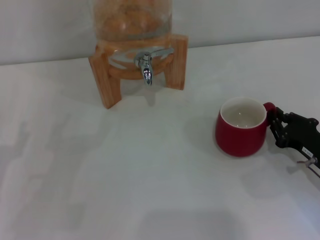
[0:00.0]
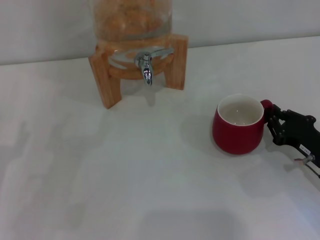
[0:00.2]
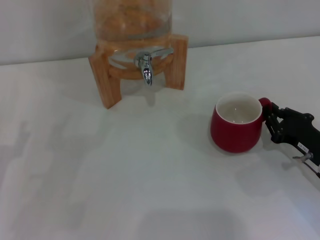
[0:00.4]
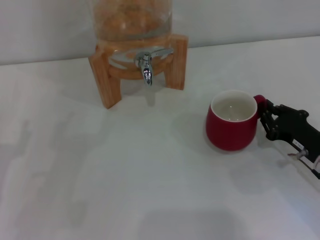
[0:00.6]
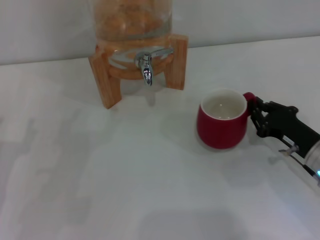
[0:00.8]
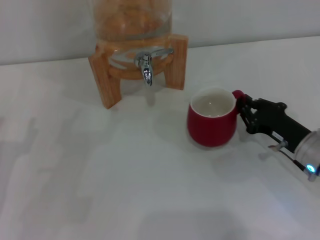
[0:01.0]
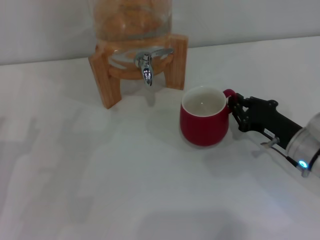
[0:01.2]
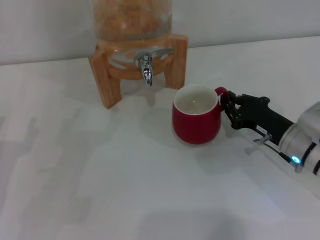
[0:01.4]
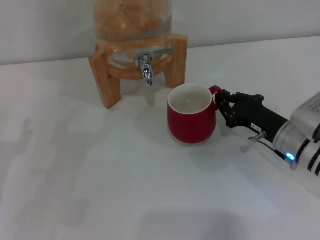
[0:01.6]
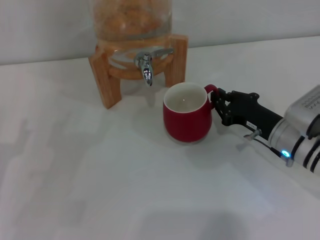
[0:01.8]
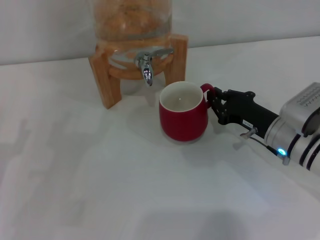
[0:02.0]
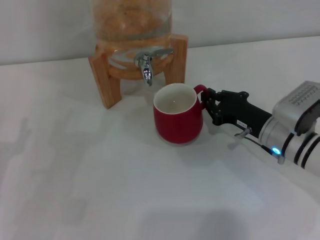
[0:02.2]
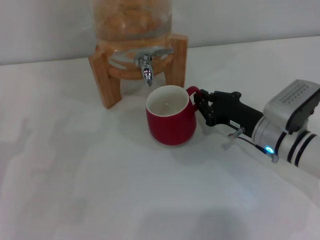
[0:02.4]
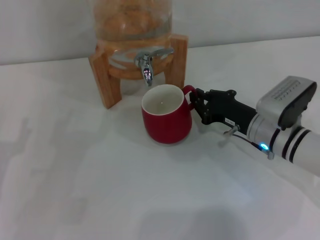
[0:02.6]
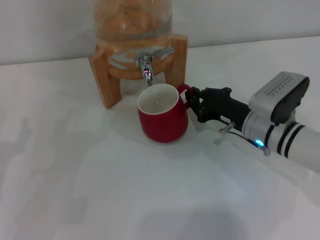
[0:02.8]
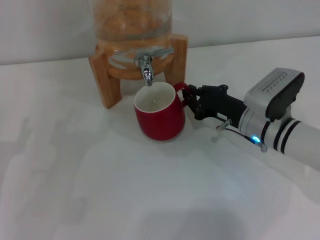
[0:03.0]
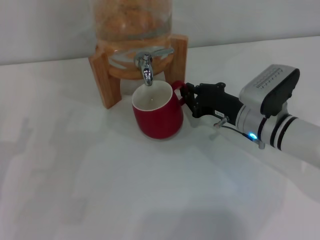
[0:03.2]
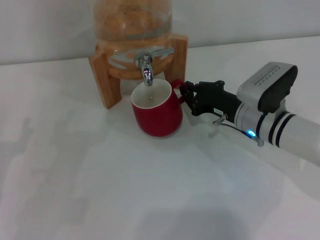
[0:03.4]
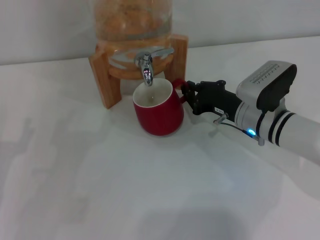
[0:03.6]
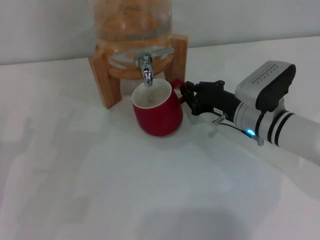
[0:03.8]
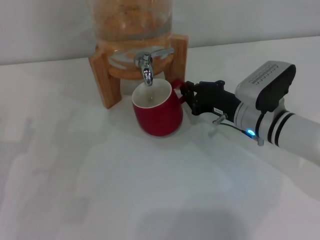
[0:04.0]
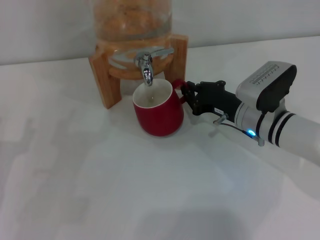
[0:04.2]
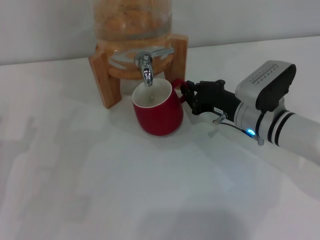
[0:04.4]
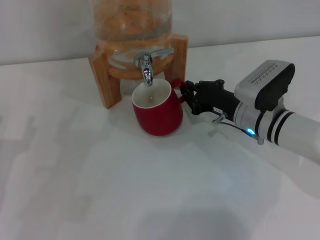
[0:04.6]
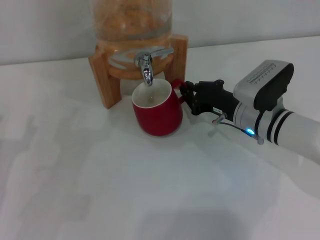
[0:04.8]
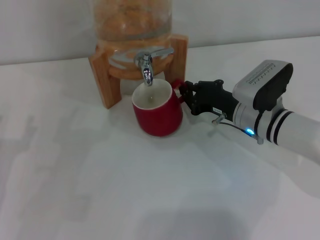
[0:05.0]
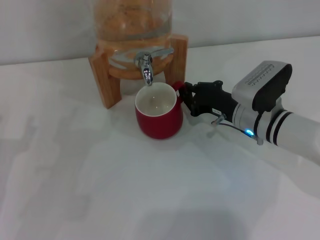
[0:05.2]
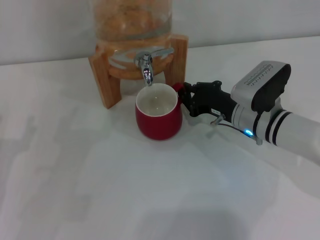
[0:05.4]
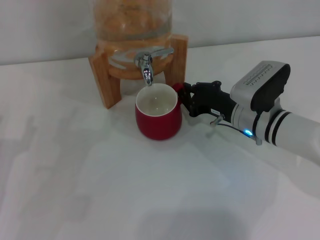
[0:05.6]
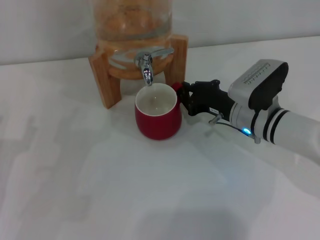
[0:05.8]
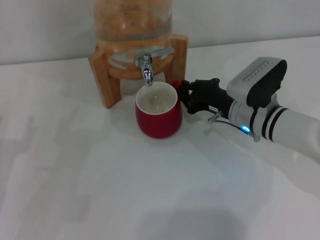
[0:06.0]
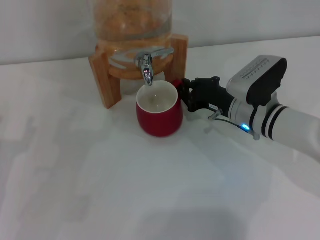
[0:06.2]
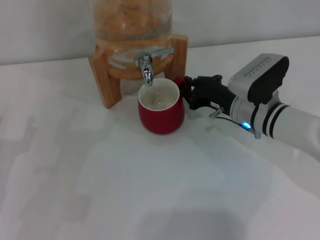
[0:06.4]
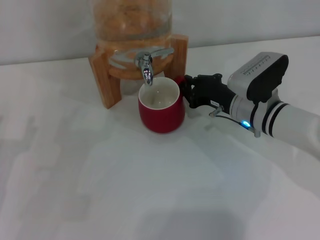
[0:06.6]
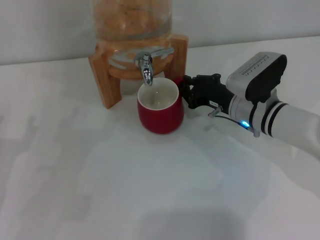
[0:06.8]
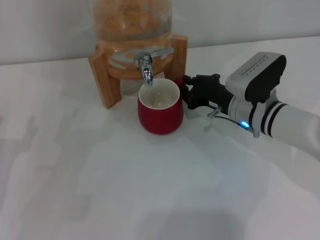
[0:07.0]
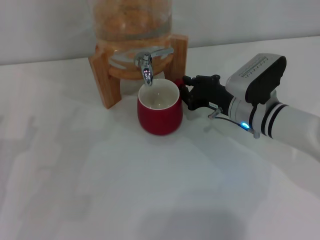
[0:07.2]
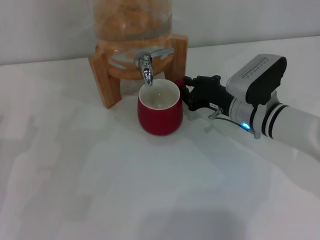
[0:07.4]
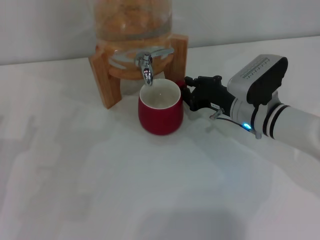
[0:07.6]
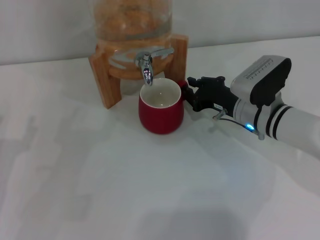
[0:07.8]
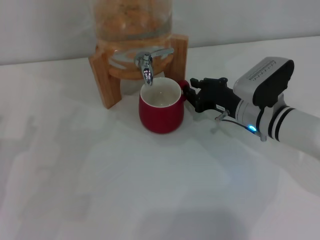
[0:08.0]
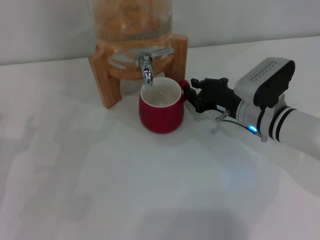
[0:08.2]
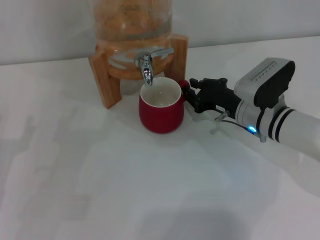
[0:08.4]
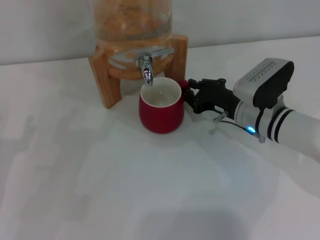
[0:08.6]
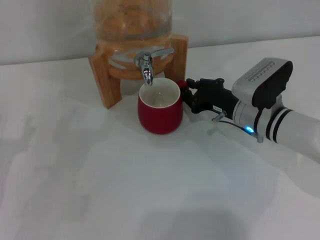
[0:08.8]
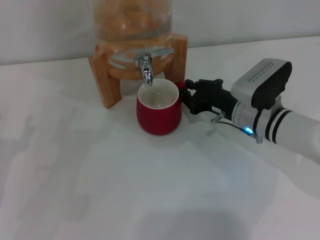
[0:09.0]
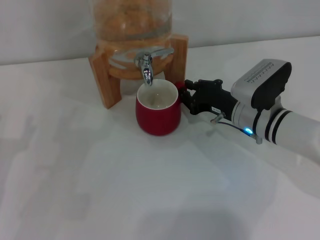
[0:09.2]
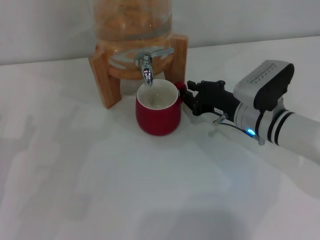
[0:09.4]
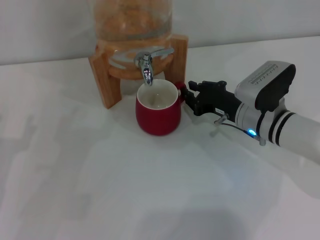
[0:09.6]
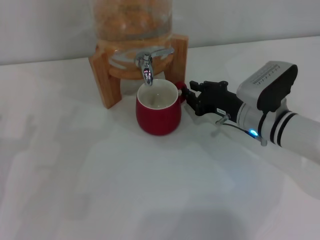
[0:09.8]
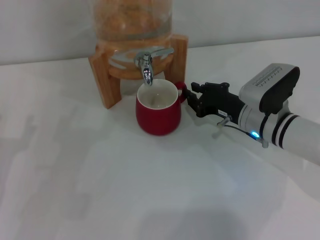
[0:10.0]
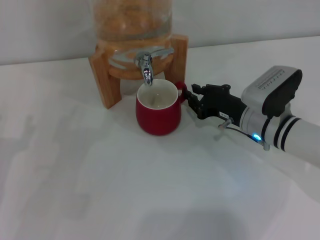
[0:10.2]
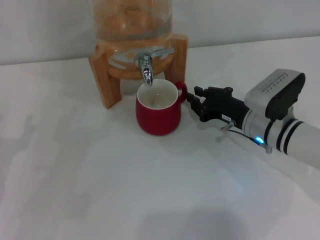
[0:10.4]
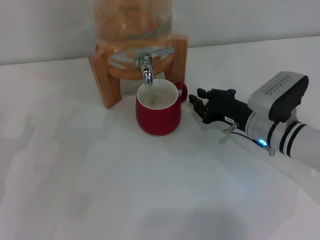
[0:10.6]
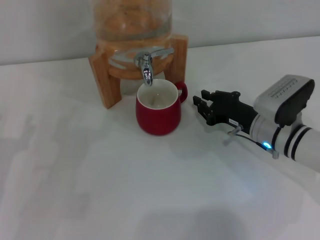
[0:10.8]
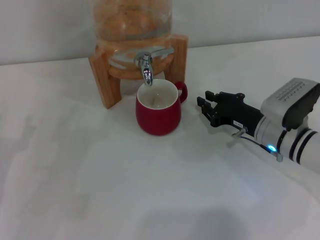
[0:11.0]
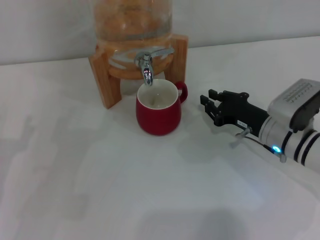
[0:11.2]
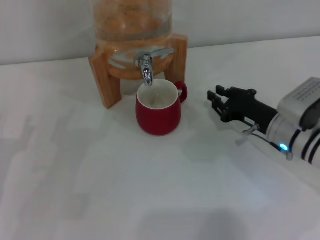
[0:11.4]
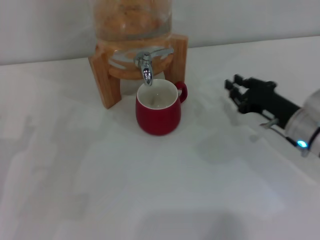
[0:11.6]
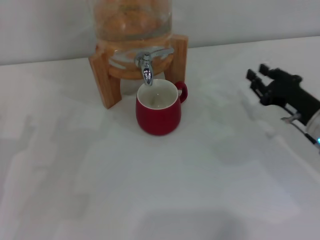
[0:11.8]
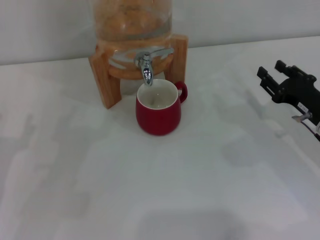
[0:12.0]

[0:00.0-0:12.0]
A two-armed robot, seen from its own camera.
Task of the whole recording: the right gripper pick up the red cup and place it horizontally under the faucet, the left gripper turn on the faucet to fill the cup, and then turn off the faucet.
Step, 0:00.0 to 0:10.8: Move the cup beneath the water dispenser nozzle with the right gripper.
0:00.0 to 0:01.6: The right gripper moves forward and to the left, approximately 10 cm.
0:01.6 to 0:03.0: The right gripper changes place by about 5 cm.
0:03.0 to 0:04.4: Both grippers stay about where they are.
0:04.4 to 0:06.0: Both grippers stay about where they are.
0:06.0 to 0:09.0: Both grippers stay put.
0:09.0 to 0:10.4: The grippers stay close to where they were, moving slightly.
0:10.4 to 0:12.0: The right gripper moves to the right, some 10 cm.

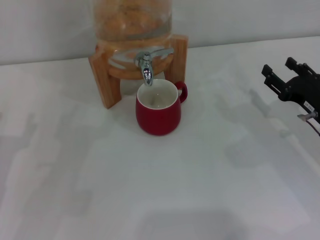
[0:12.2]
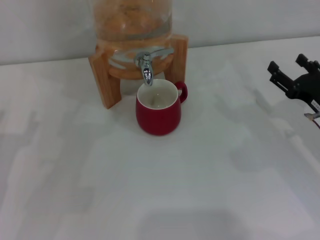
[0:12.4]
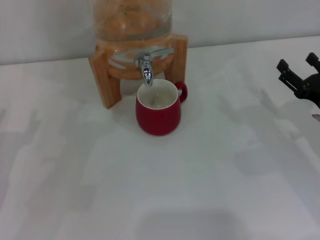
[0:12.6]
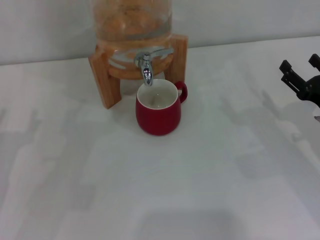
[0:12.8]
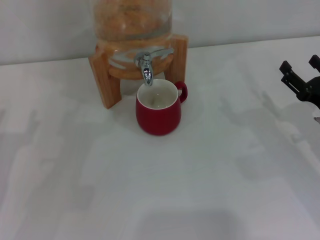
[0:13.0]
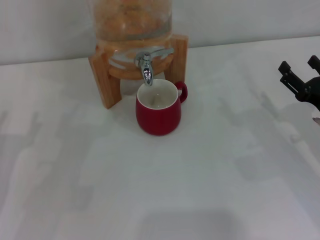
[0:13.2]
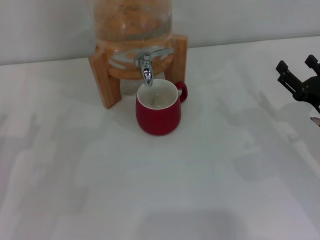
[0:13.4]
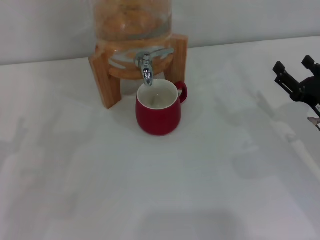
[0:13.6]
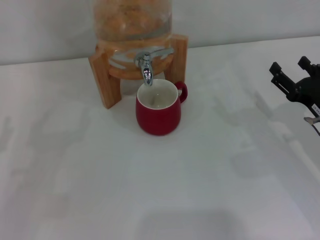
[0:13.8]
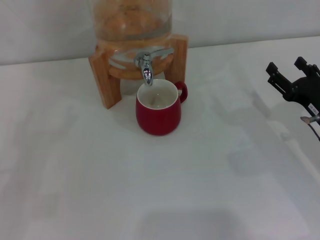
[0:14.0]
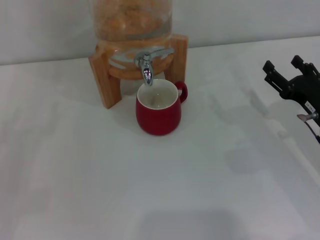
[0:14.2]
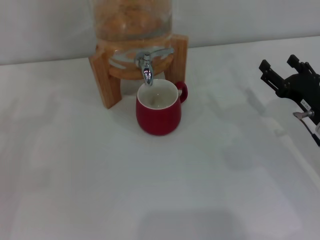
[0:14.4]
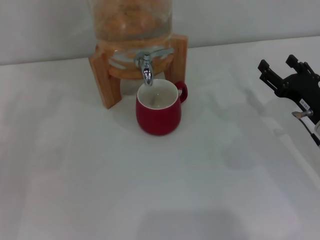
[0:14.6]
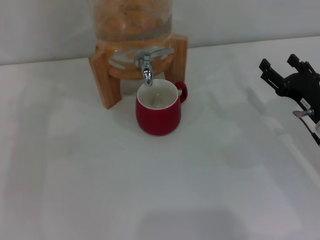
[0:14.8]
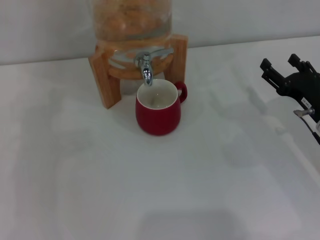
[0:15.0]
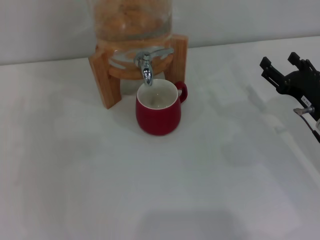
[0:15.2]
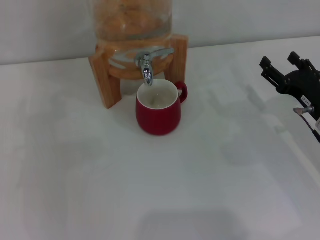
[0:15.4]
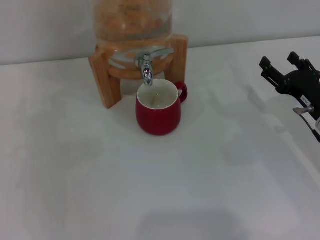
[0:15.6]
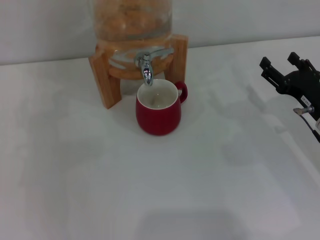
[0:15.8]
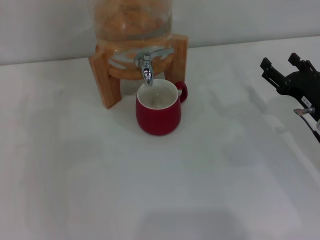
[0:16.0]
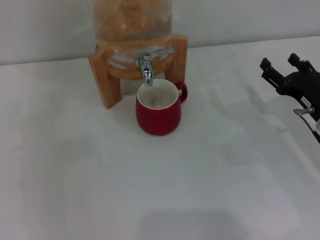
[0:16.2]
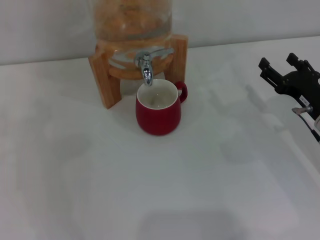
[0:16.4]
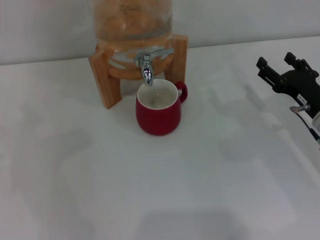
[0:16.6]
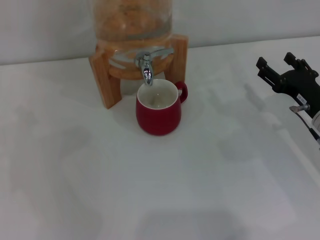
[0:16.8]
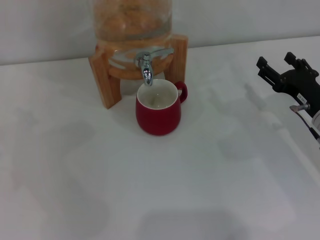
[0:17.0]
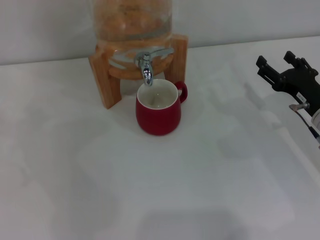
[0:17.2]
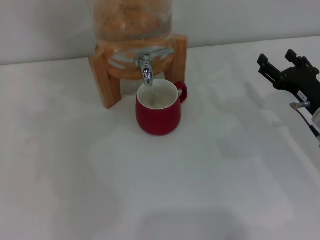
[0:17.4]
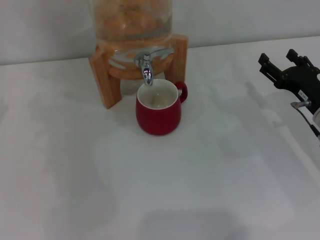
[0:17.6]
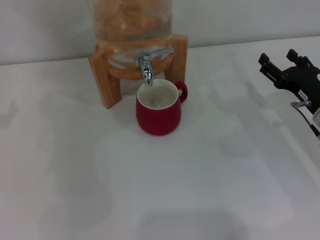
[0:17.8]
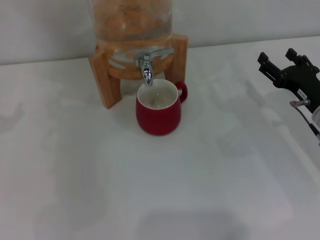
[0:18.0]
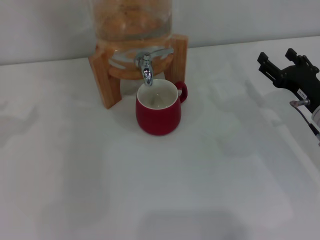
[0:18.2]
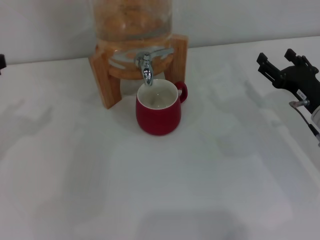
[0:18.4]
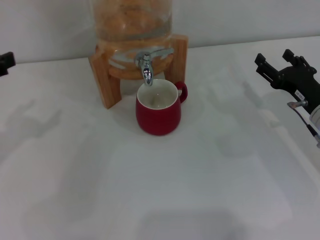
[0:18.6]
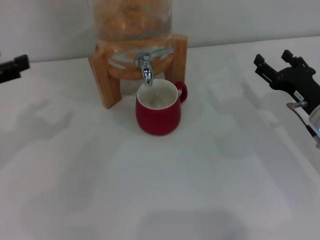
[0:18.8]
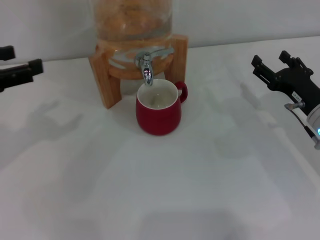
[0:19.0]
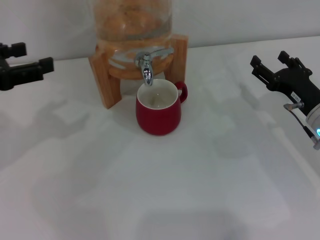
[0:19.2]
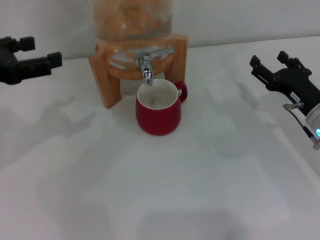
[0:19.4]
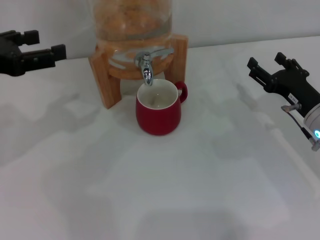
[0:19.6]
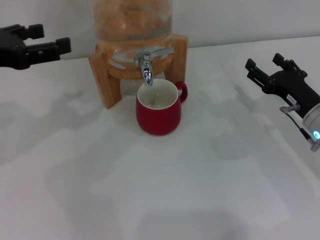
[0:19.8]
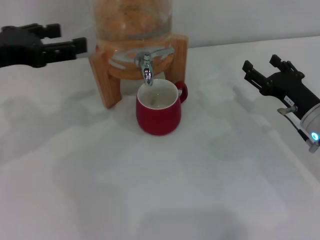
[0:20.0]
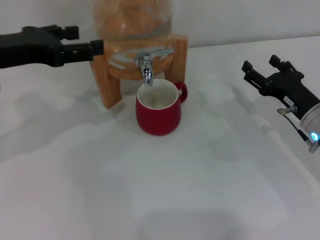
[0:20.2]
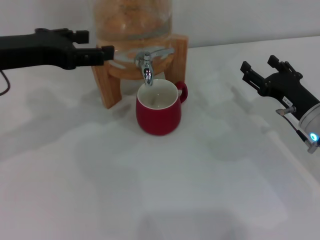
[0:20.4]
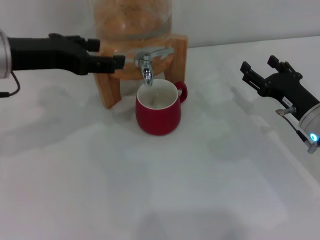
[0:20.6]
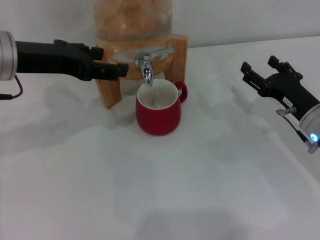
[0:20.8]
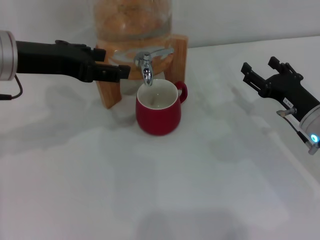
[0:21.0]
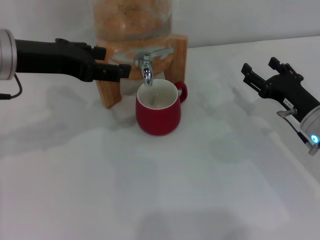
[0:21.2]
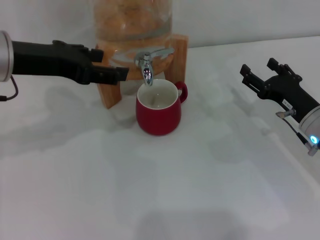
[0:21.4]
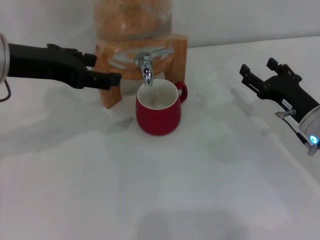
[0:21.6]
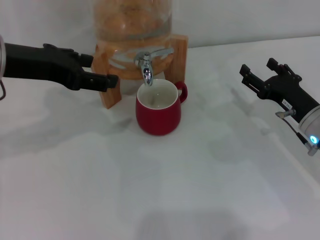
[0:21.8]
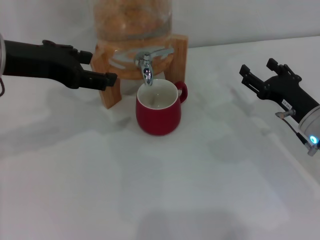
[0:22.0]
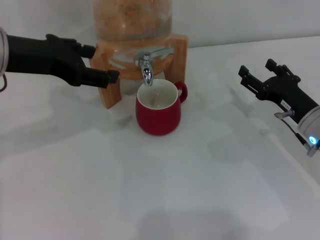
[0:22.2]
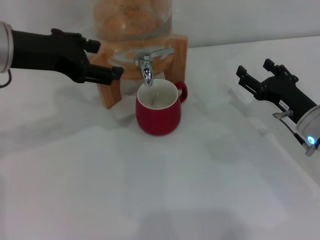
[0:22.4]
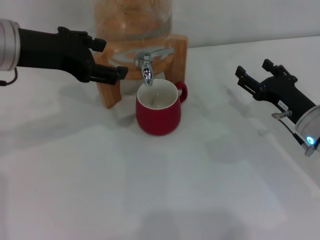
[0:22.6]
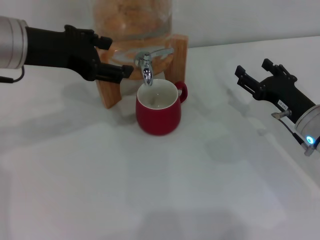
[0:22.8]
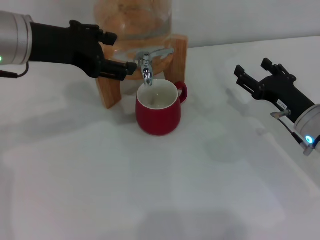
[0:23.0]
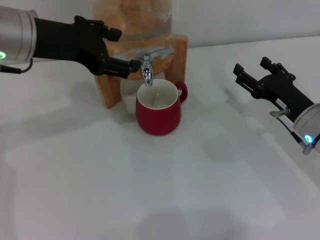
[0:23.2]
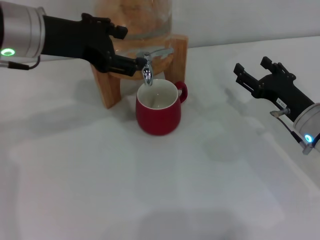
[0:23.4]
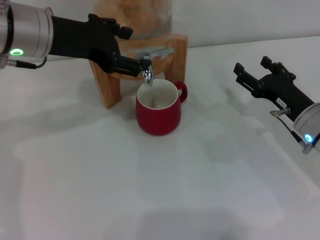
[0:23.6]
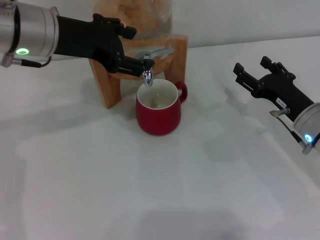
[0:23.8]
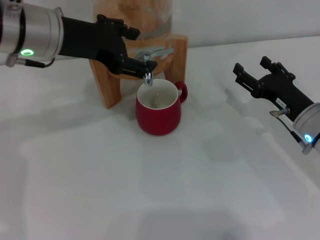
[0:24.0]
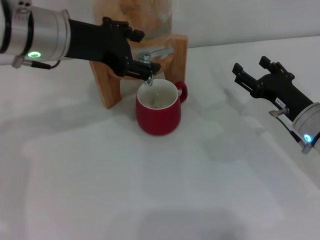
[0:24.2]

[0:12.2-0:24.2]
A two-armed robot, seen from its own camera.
Task of the whole recording: the right gripper pick up the red cup and place it horizontally under the faucet, the left gripper turn on the faucet to fill the cup, and then turn off the faucet.
0:12.2 to 0:13.8: The right gripper opens.
0:15.2 to 0:16.6: The grippers make only small movements.
0:18.2 to 0:19.8: The left gripper heads to the right, covering some 5 cm.
0:19.8 to 0:21.2: The left gripper shifts about 10 cm to the right.
0:21.2 to 0:22.6: The grippers move only a little.
0:22.6 to 0:24.2: The left gripper moves to the right, about 5 cm.
